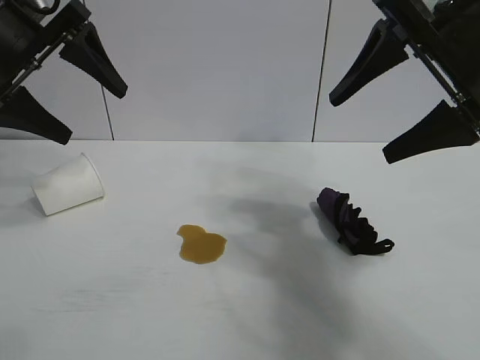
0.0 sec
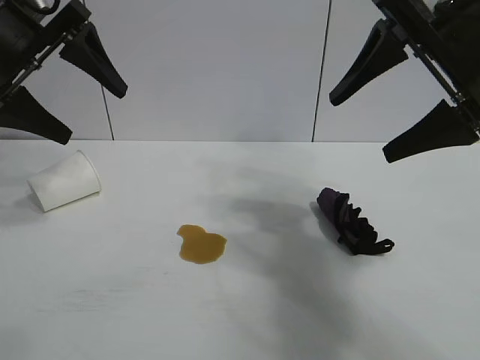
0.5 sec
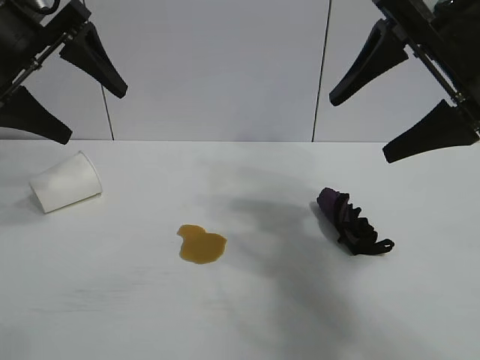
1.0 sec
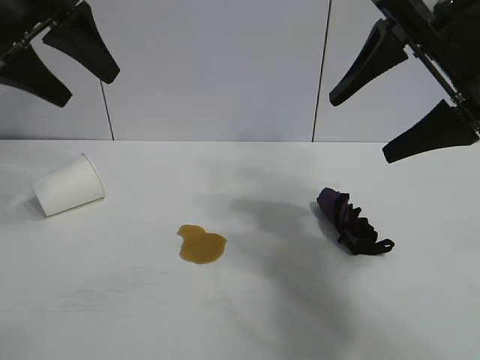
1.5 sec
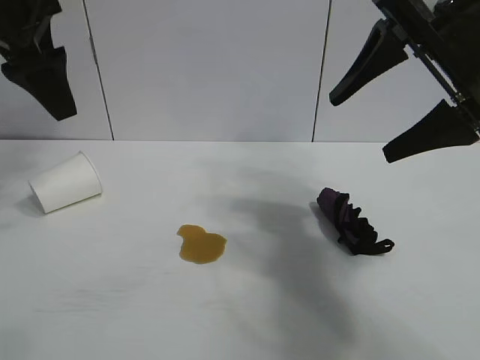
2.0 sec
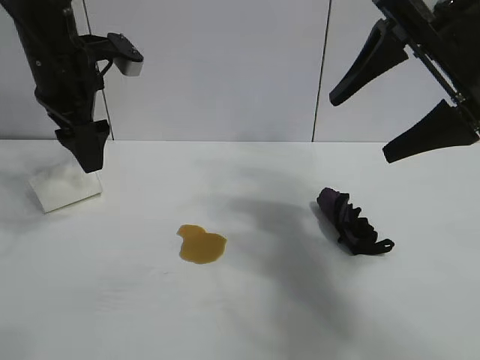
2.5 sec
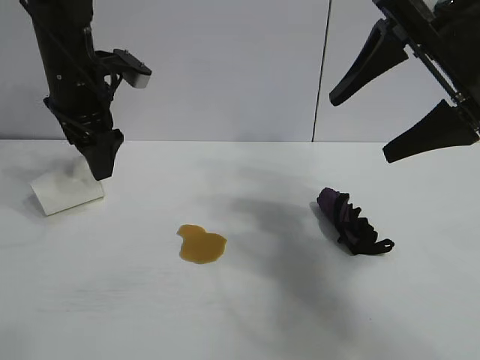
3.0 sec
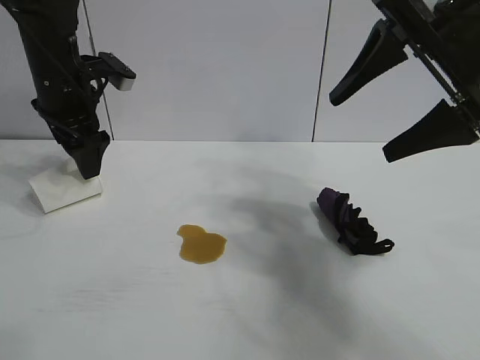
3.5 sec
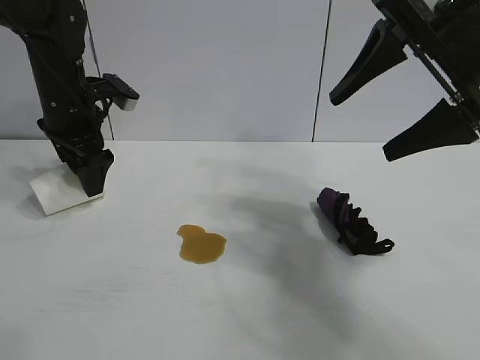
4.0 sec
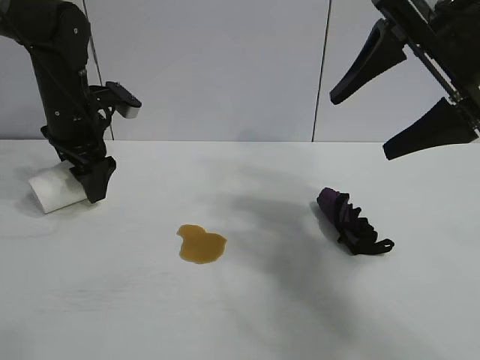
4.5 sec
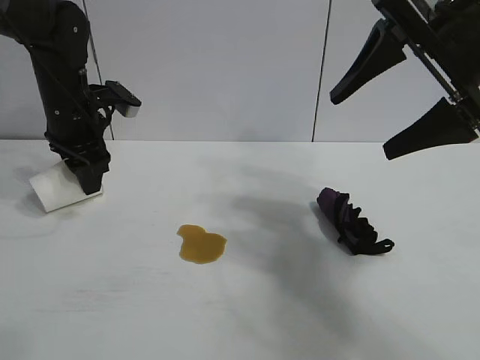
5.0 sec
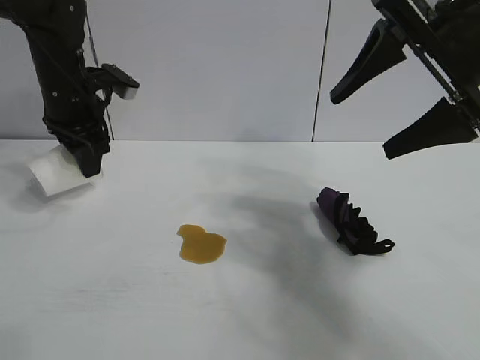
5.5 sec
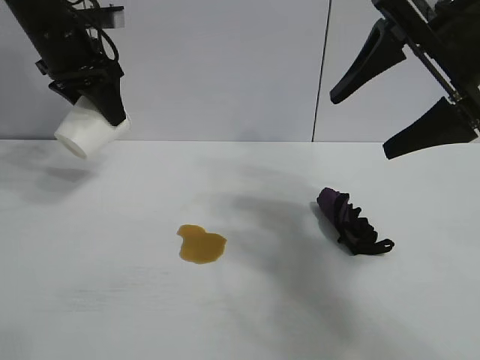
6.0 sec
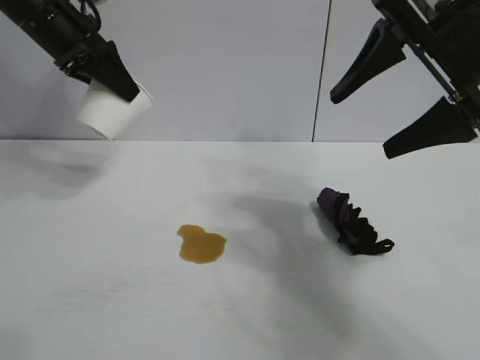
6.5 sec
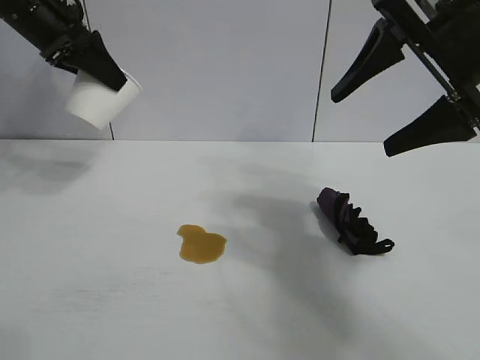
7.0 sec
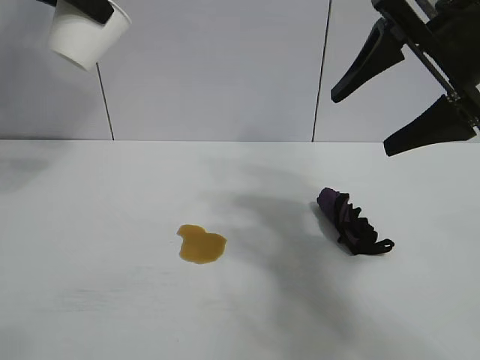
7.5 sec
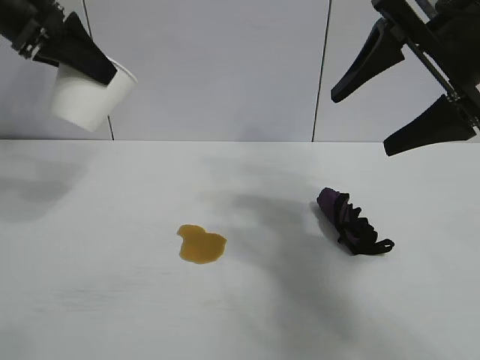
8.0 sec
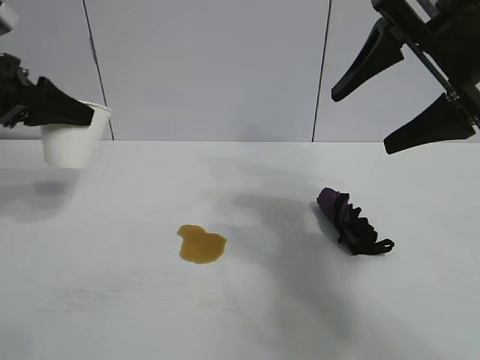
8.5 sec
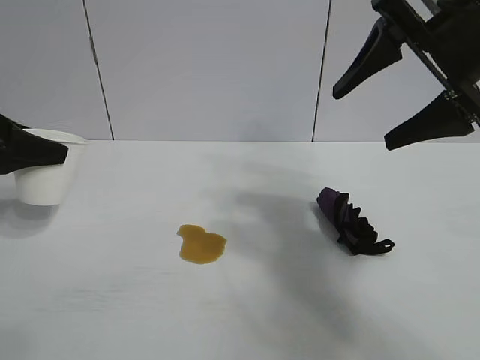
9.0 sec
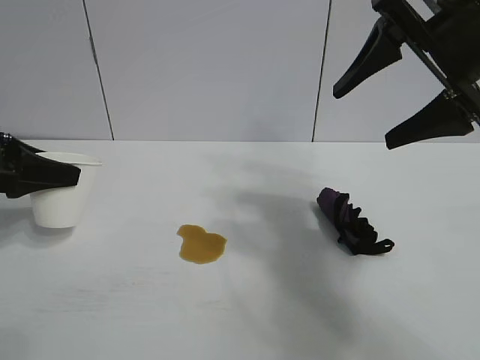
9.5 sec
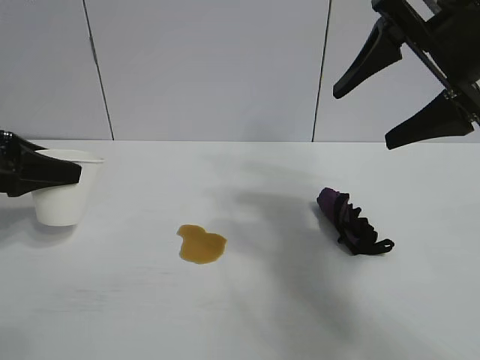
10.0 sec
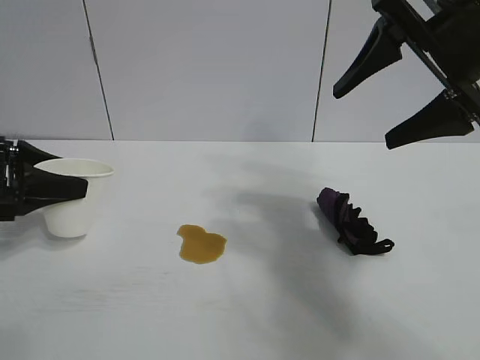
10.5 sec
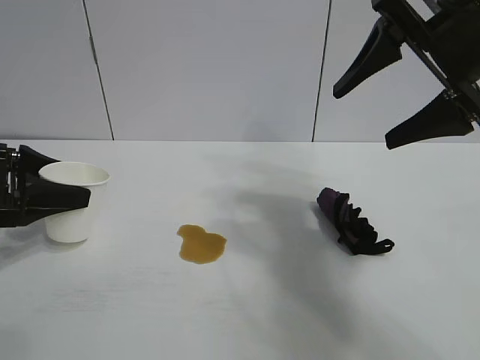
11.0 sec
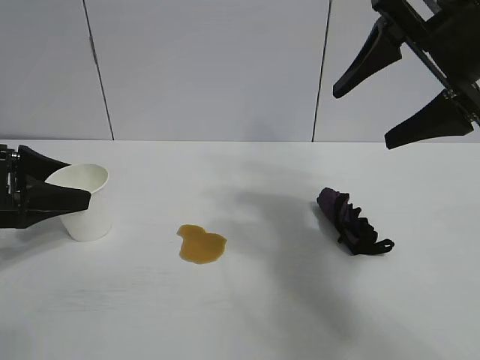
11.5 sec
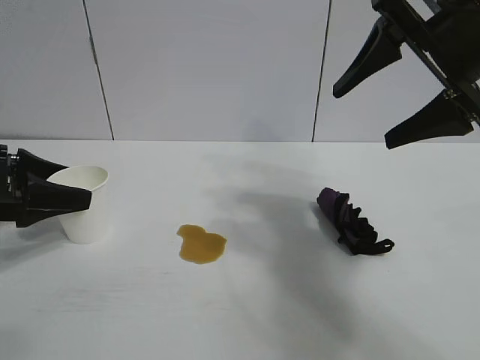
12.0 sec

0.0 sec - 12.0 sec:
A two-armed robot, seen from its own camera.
Task of the whole recording: the left gripper pick up the fallen cup and place it upright, the right gripper grasp the black rag and wipe the stain on the table, the right gripper put the black rag back in its original position.
Step, 1.5 sec - 5.0 sec: Grasp the paper cup with left gripper.
Step, 5.5 sec - 11.5 sec: Stand the paper cup upright with left gripper.

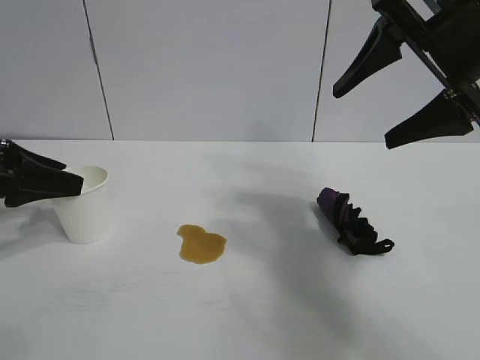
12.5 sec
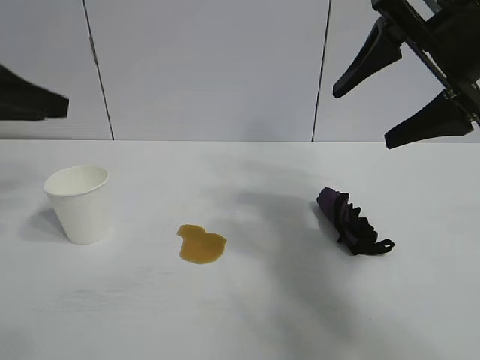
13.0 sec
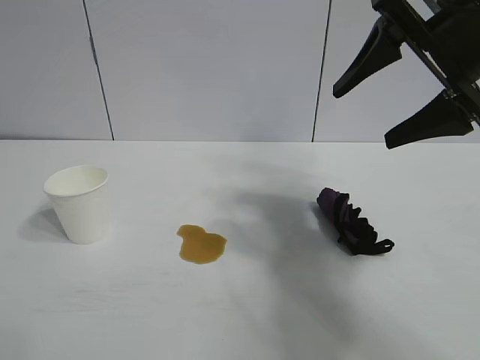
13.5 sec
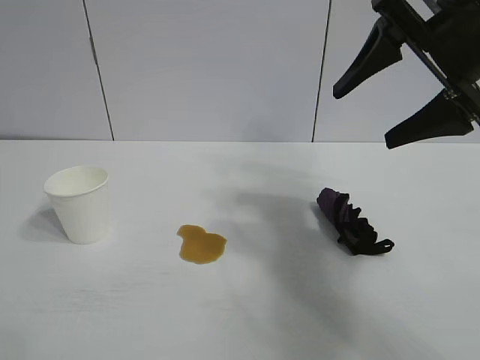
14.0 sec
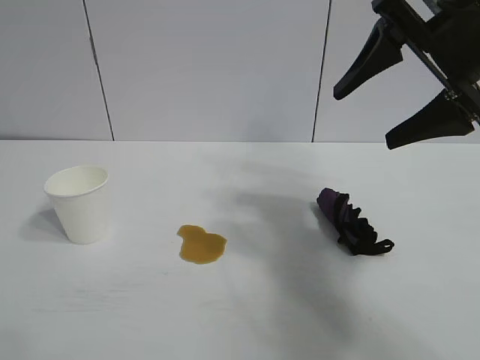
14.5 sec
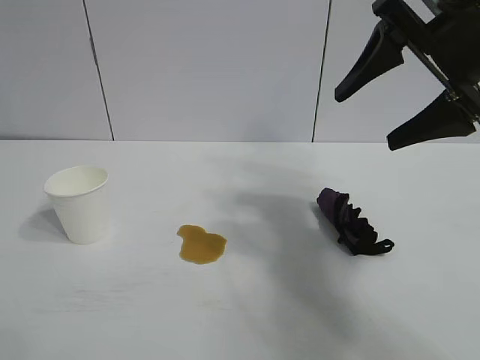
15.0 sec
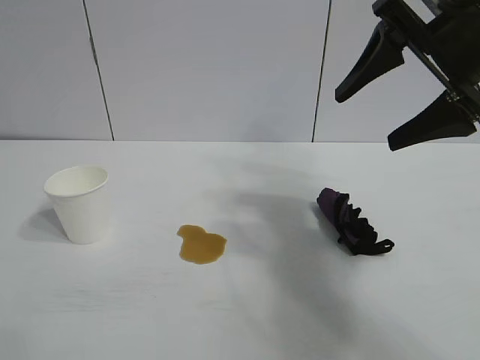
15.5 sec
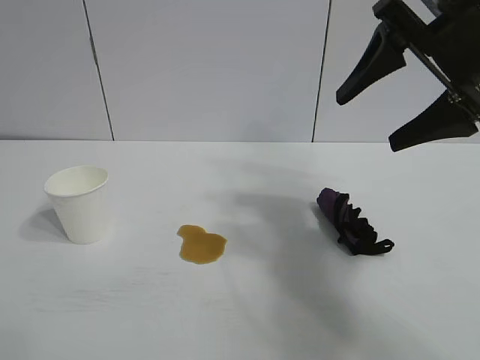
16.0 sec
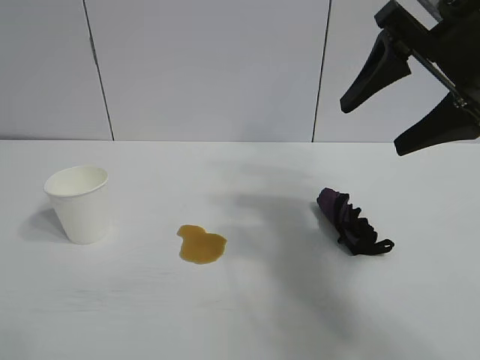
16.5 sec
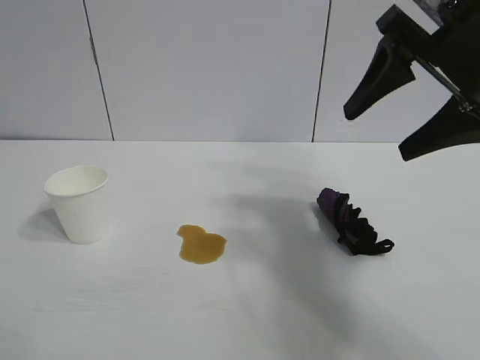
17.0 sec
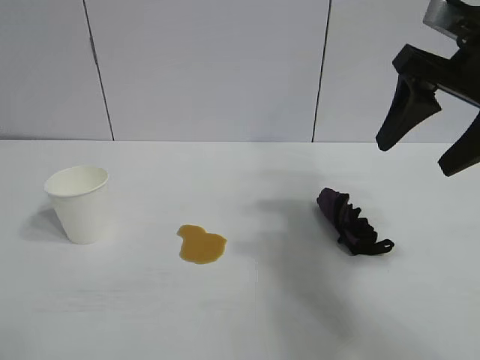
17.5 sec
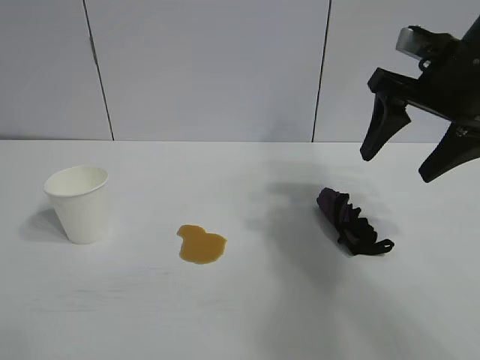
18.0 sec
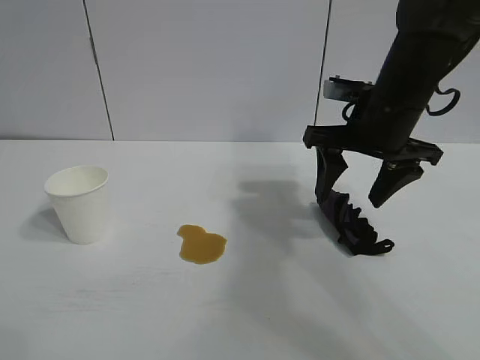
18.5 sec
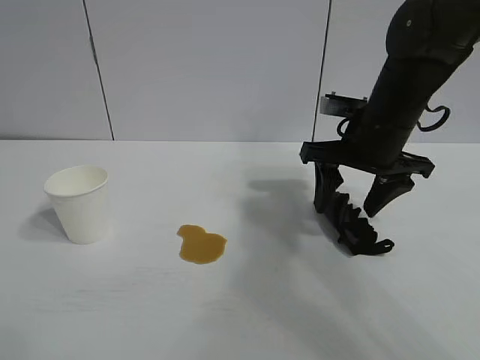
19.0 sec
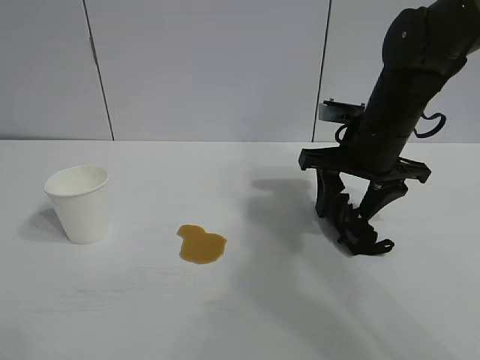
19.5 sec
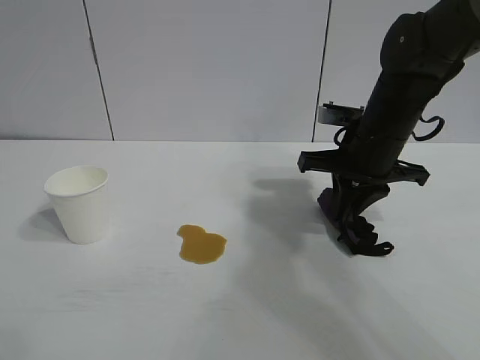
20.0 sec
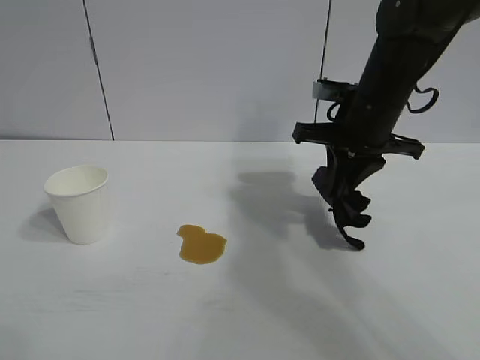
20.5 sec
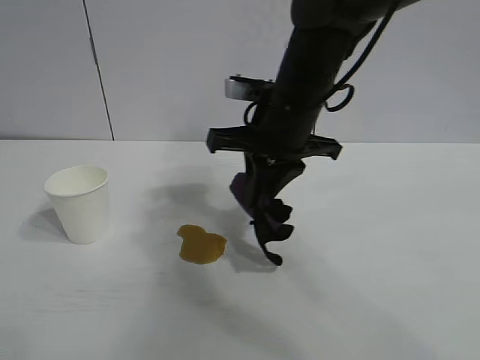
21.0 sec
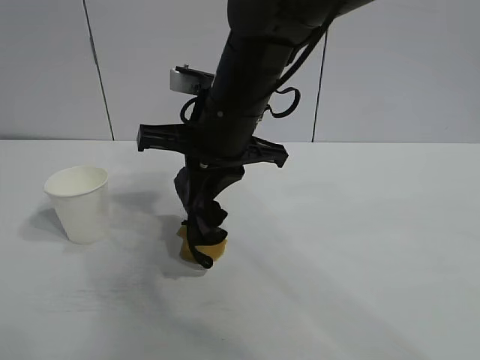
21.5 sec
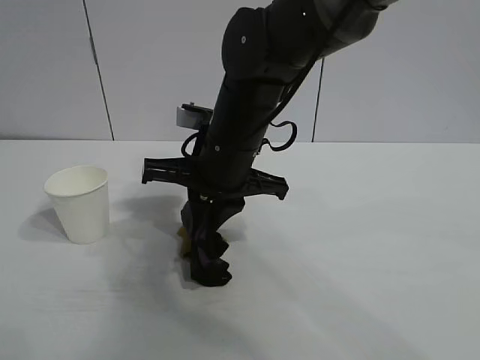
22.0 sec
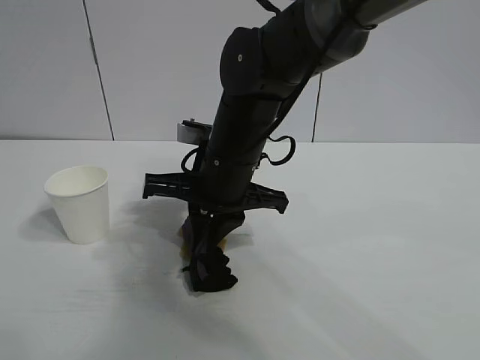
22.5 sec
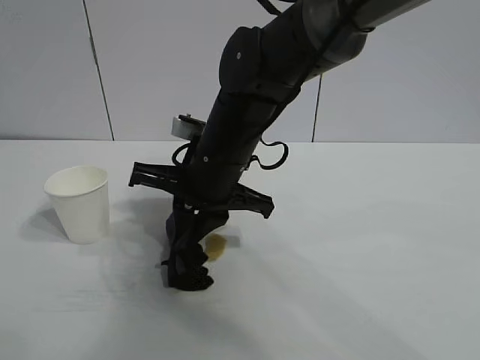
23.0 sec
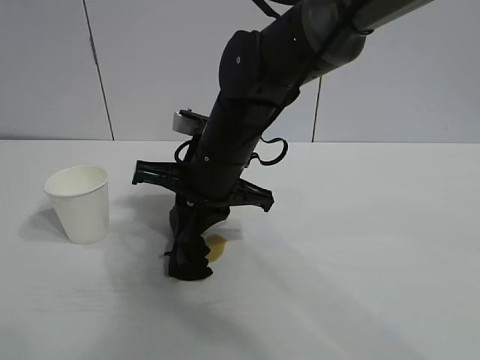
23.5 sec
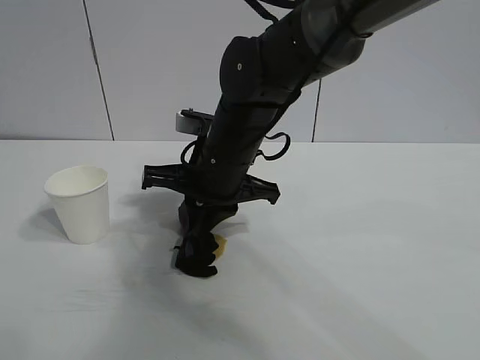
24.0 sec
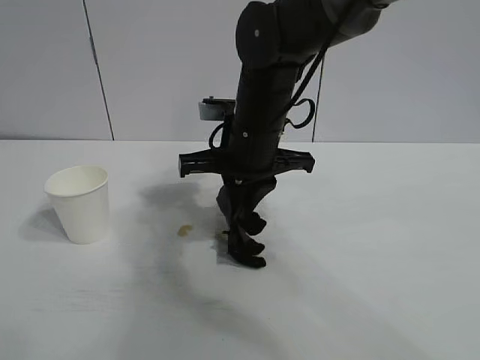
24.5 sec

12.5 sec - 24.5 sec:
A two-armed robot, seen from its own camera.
Task of the whole recording: the left gripper pick up the fallen cup and place it upright, the right gripper grasp the black rag and wipe the stain on the table, the right gripper put the black rag back in its original position.
Step, 12.5 sec - 20.0 sec: Grasp the rag with right gripper.

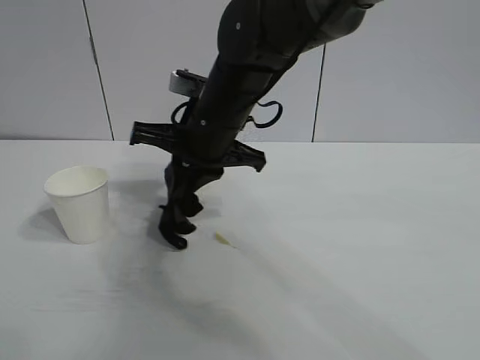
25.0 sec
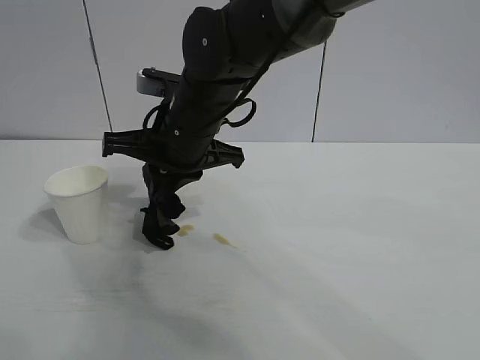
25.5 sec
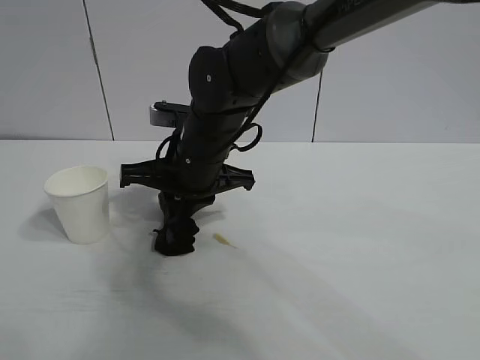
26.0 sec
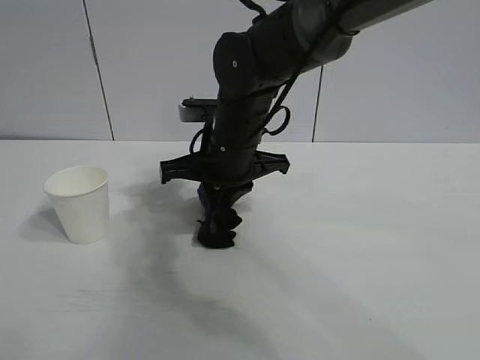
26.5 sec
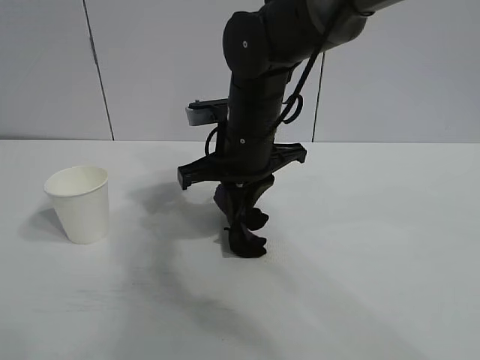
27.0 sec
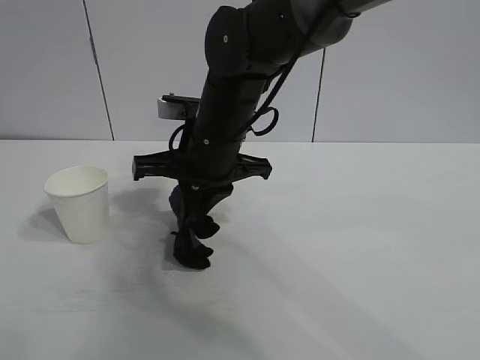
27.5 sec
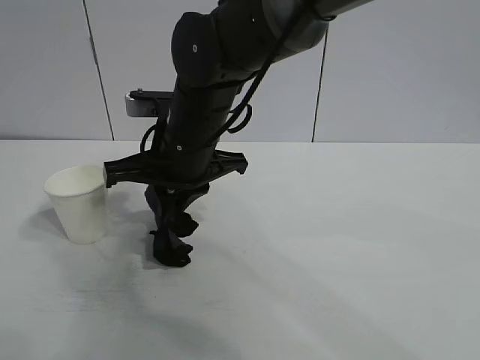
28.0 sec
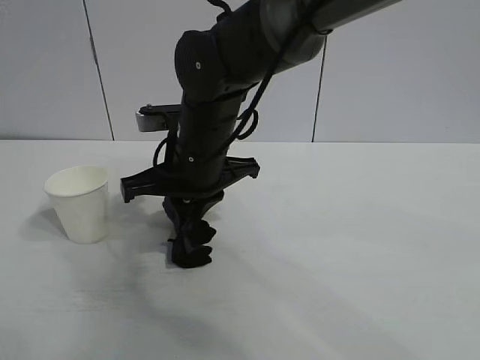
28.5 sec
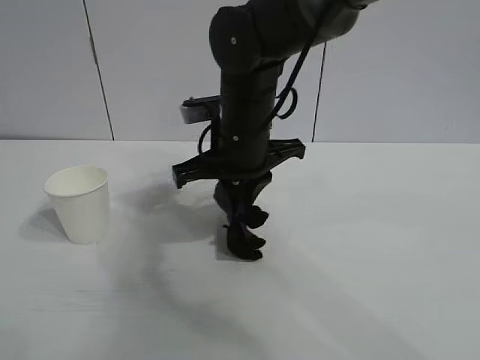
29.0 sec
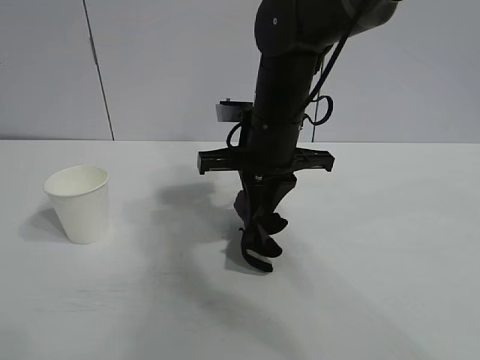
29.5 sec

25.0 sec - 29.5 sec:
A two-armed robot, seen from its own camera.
Task of the whole recording: the left gripper pick up the fallen cup and place it upright, the right gripper grasp the black rag and wipe the stain on the table, the right gripper put the black rag back in its original position.
Step, 25.0 sec - 29.0 sec: Wipe the stains off the table with the rag with right gripper.
